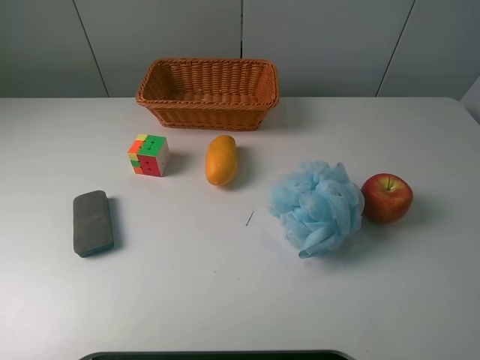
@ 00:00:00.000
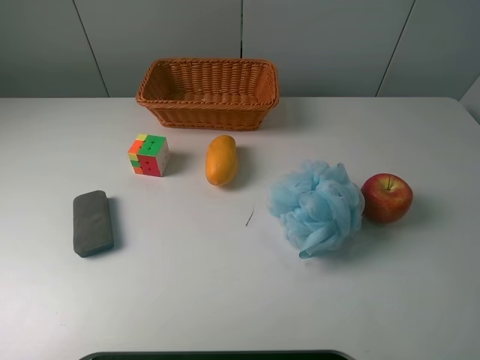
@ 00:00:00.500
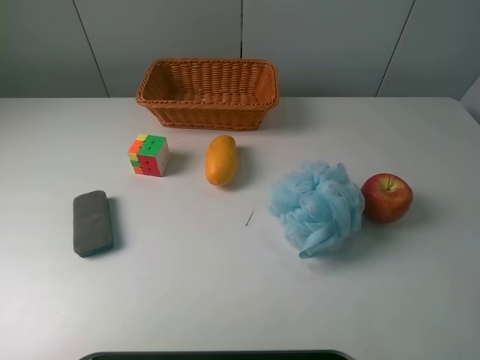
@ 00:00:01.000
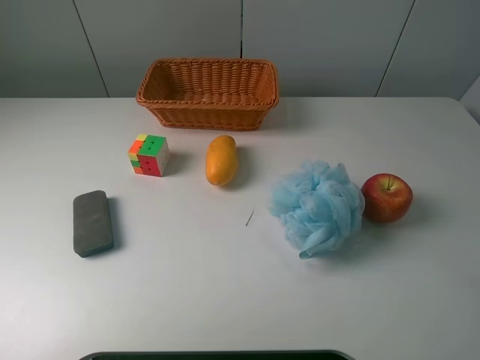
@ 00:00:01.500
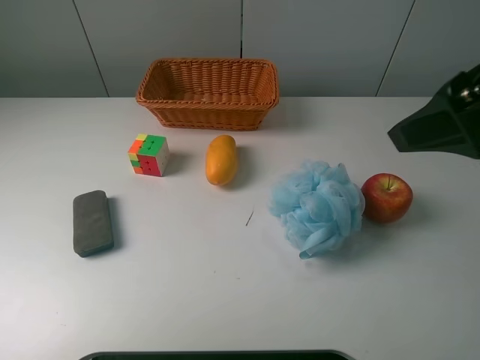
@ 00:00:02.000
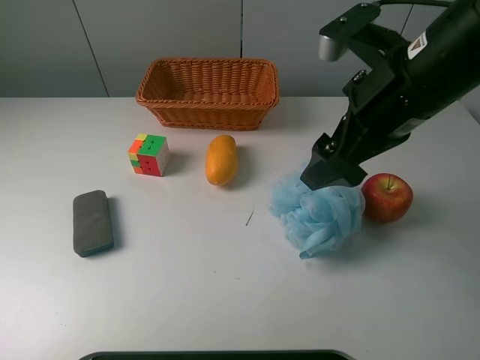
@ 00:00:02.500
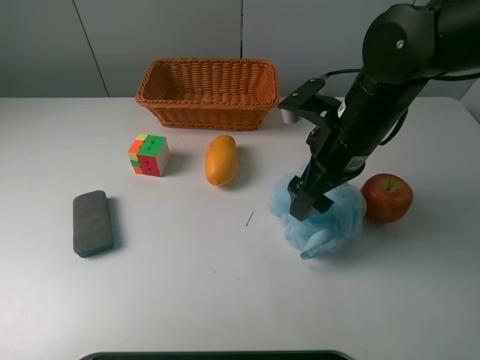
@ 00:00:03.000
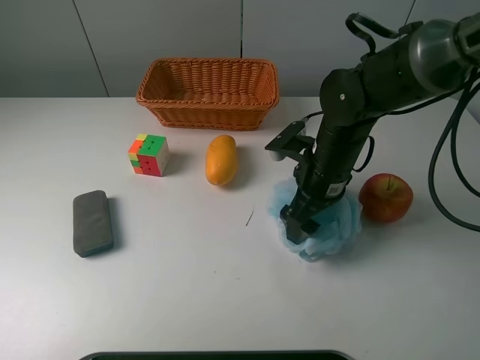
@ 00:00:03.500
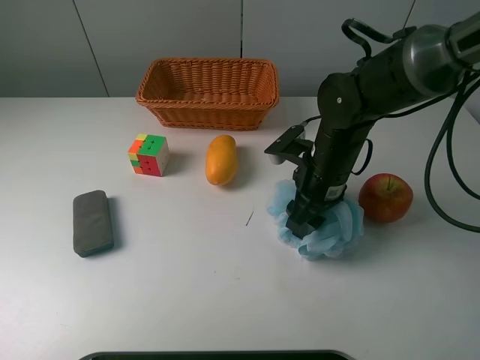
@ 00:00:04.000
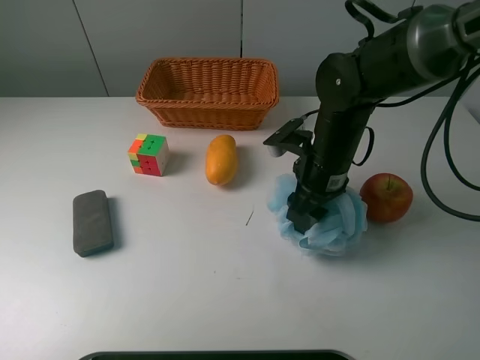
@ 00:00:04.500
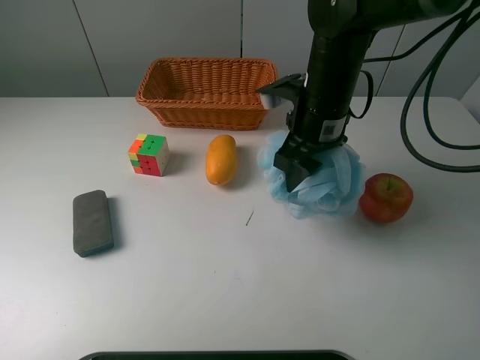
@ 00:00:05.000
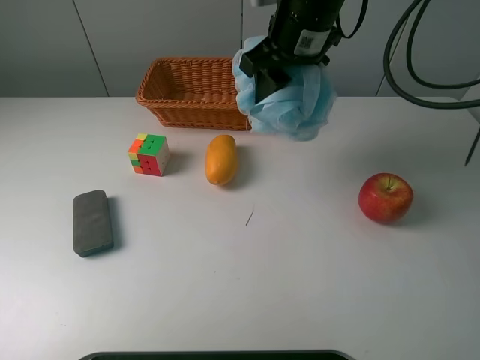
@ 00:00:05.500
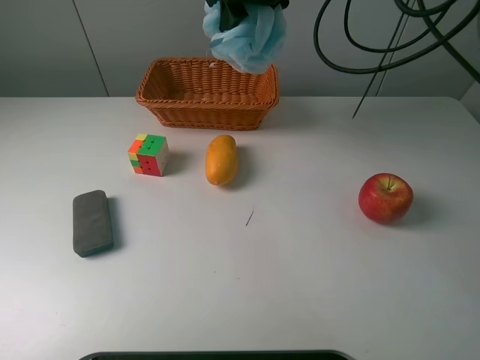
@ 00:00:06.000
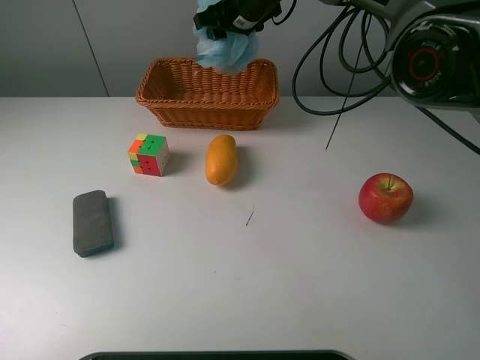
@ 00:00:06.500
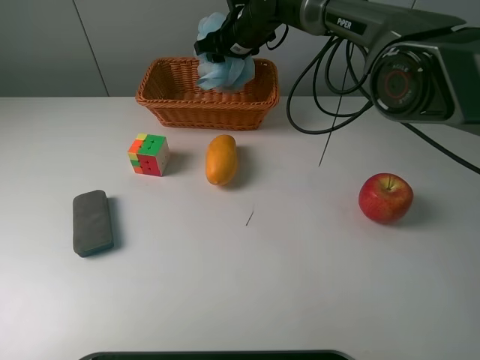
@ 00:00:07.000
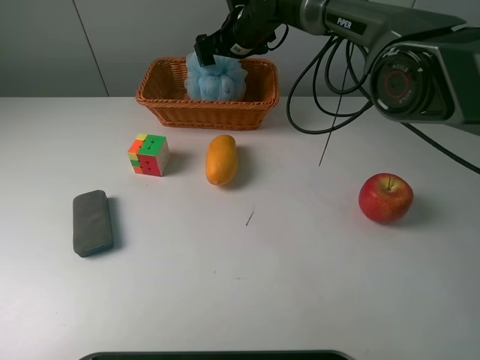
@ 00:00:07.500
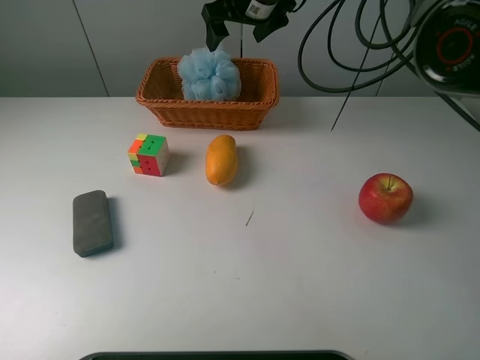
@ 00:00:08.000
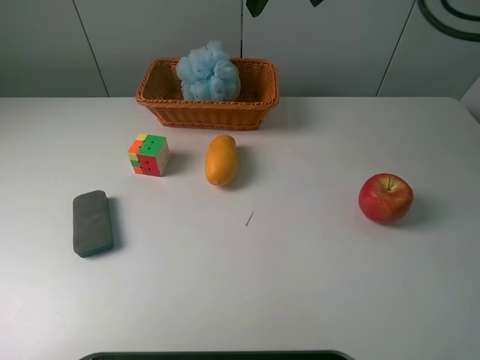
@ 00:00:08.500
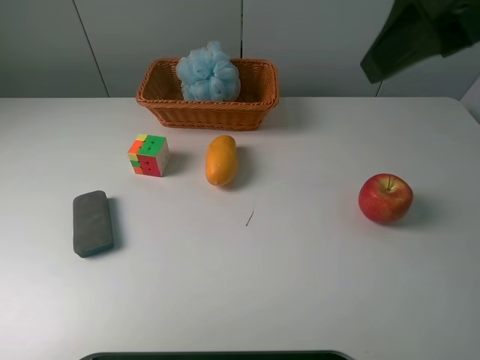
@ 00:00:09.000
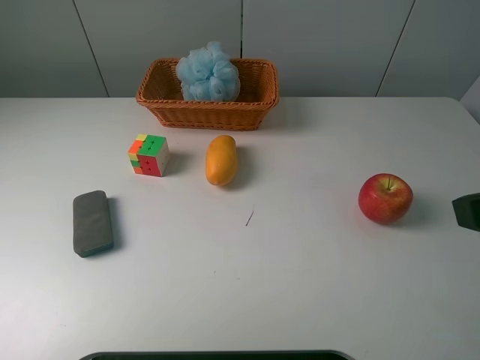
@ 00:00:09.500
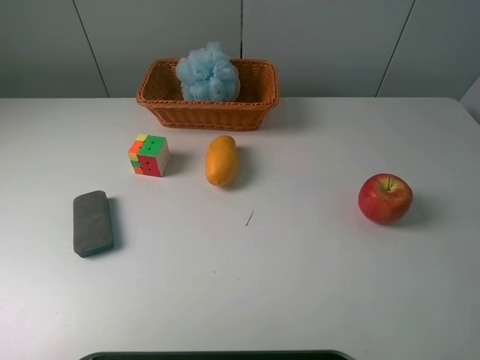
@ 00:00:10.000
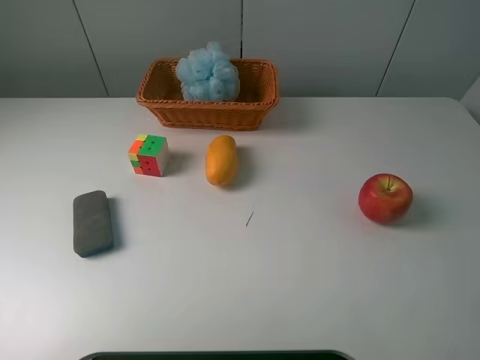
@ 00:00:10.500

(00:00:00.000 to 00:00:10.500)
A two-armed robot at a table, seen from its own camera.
Task of the whole recording: use a picker to grab the item closest to the apple and place it in the basket.
Step, 00:00:00.000 - 00:00:04.000: Grasp the shower sphere with the right gripper.
Step, 00:00:04.500 - 00:00:08.000: Place the shower sphere into the basket with the right gripper.
00:00:00.000 - 00:00:02.000: The right gripper shifts approximately 20 cm forward and to the left.
00:00:02.000 - 00:00:04.000: The right gripper moves downward and forward, about 25 cm, and closes.
00:00:04.000 - 00:00:06.500: The right gripper heads forward, upward and to the left, covering about 30 cm.
00:00:06.500 - 00:00:08.500: The right gripper is displaced backward, upward and to the right by some 25 cm, and opens its fingers.
00:00:08.500 - 00:00:10.500: The right gripper travels backward and to the right by about 40 cm.
